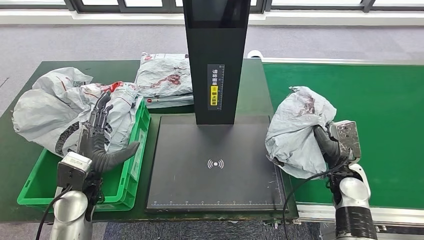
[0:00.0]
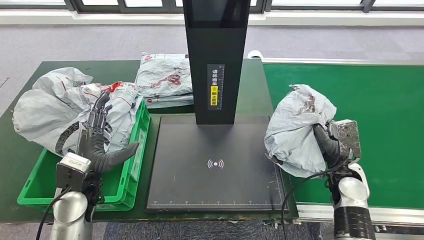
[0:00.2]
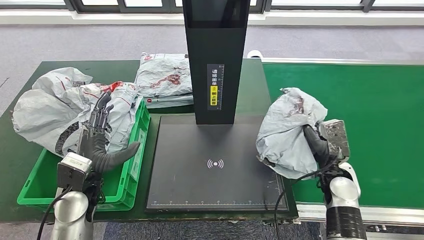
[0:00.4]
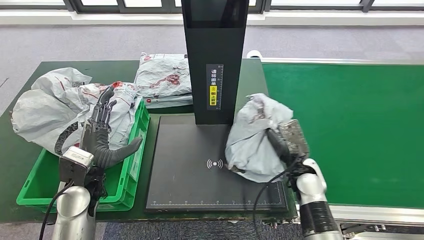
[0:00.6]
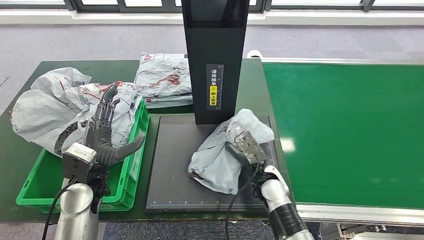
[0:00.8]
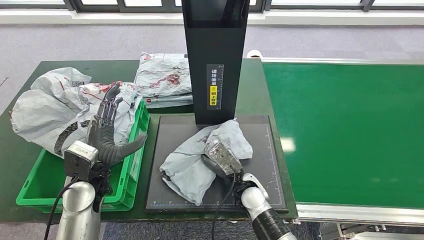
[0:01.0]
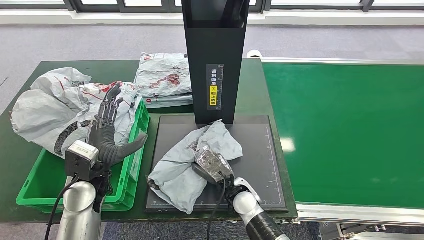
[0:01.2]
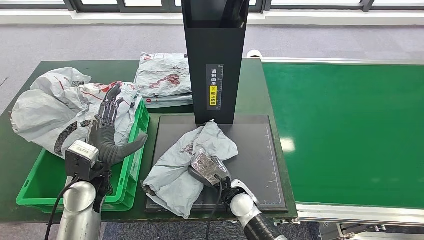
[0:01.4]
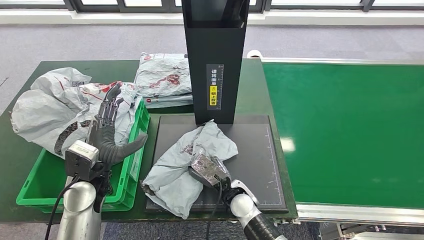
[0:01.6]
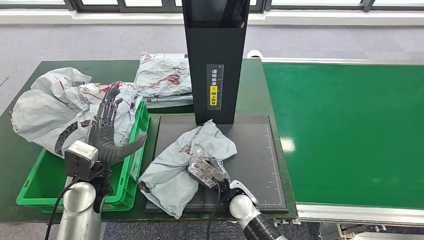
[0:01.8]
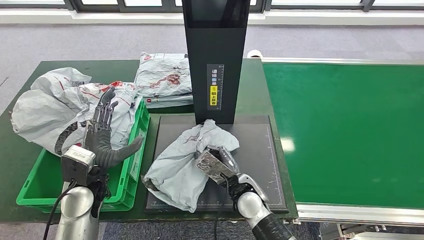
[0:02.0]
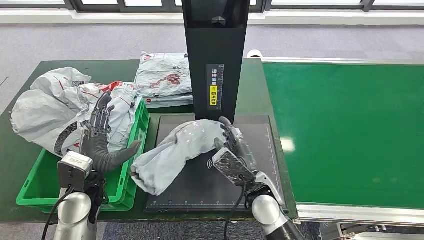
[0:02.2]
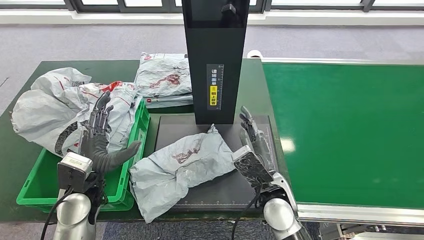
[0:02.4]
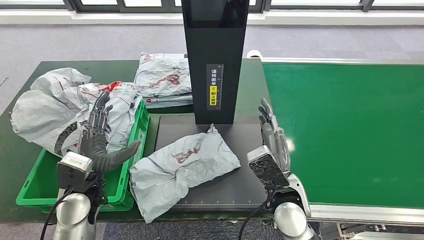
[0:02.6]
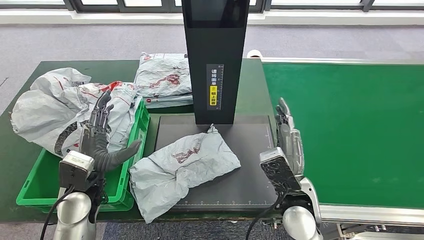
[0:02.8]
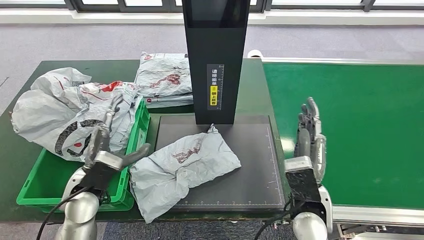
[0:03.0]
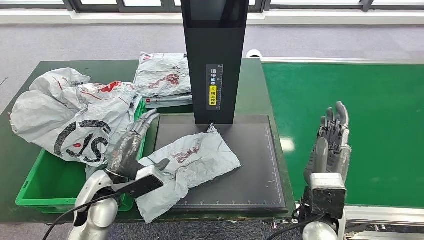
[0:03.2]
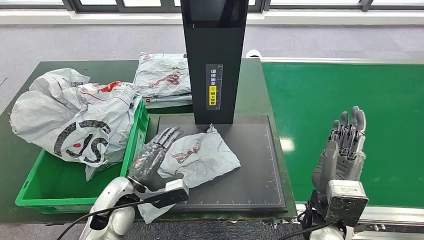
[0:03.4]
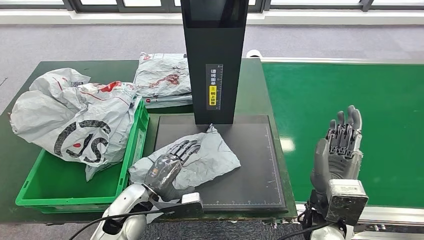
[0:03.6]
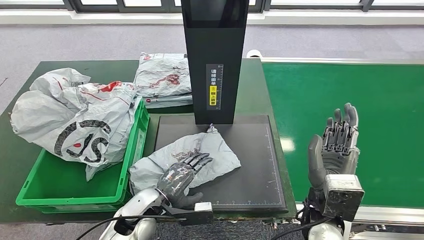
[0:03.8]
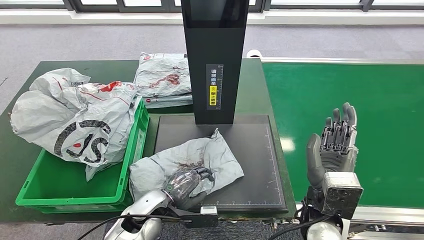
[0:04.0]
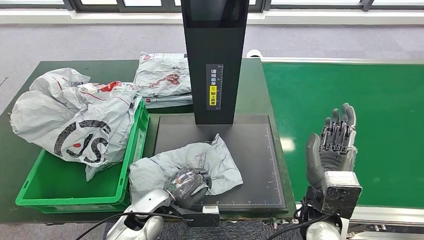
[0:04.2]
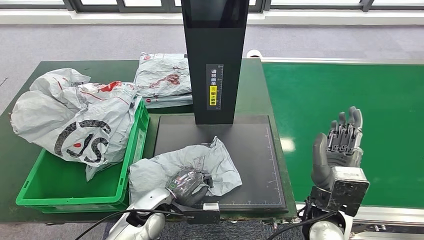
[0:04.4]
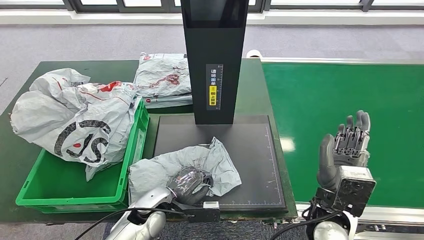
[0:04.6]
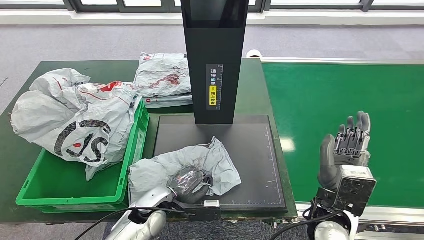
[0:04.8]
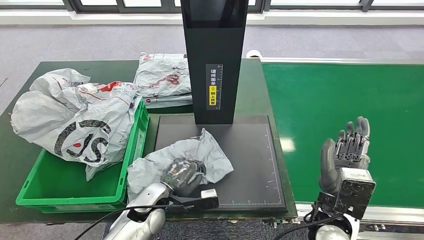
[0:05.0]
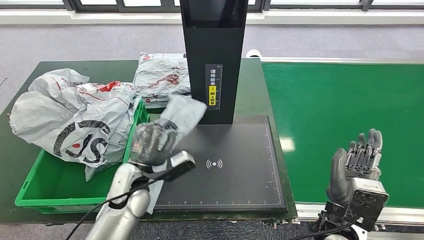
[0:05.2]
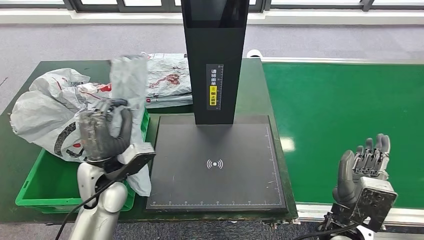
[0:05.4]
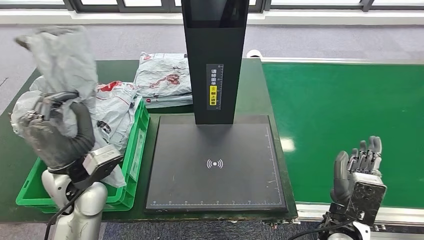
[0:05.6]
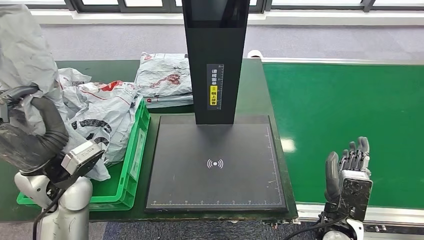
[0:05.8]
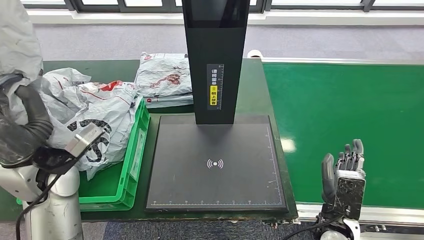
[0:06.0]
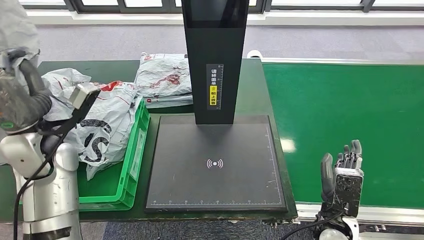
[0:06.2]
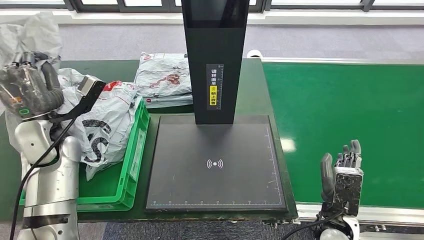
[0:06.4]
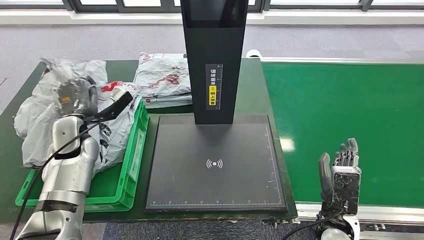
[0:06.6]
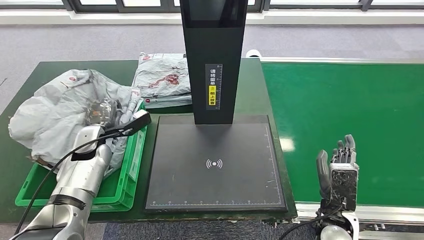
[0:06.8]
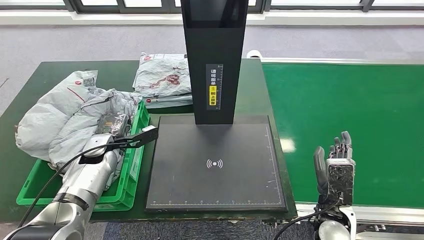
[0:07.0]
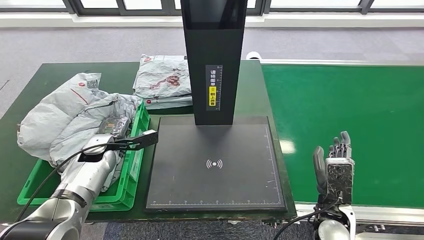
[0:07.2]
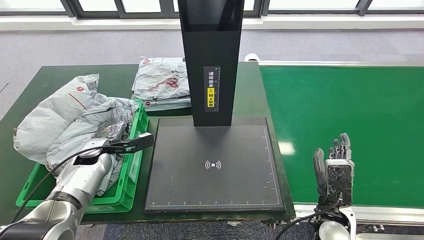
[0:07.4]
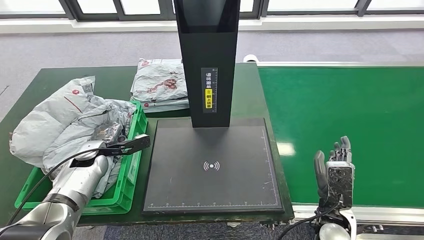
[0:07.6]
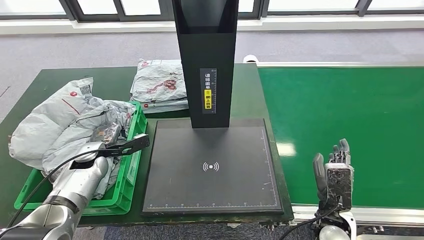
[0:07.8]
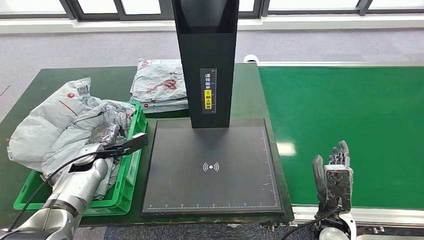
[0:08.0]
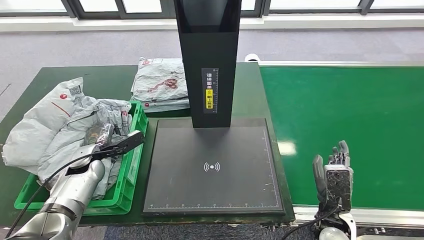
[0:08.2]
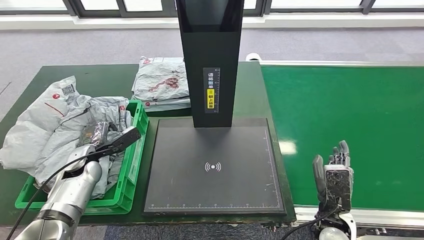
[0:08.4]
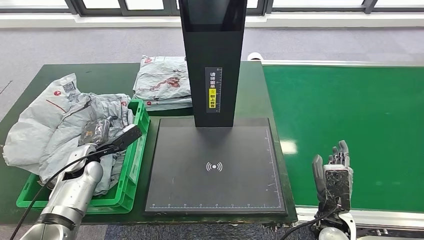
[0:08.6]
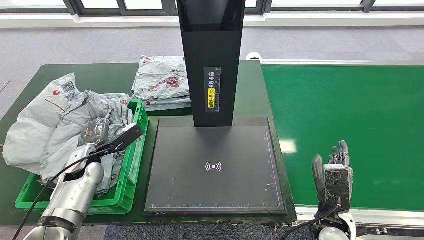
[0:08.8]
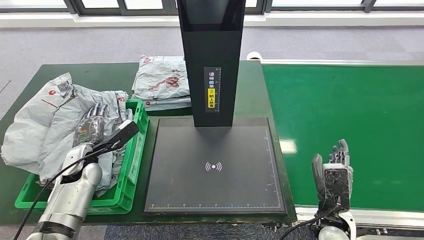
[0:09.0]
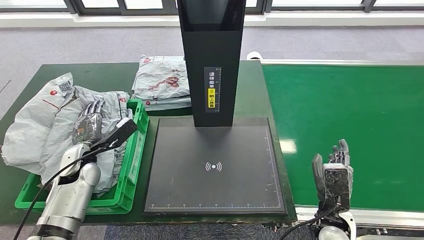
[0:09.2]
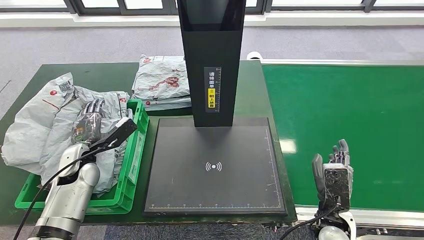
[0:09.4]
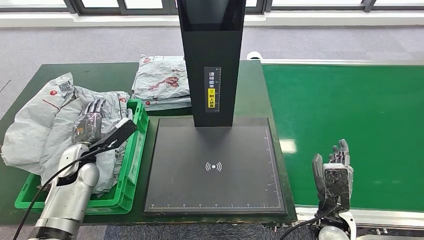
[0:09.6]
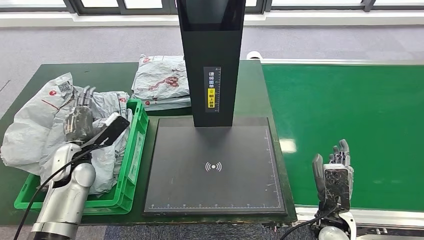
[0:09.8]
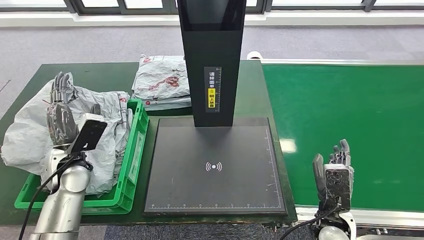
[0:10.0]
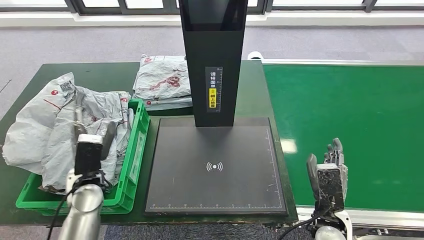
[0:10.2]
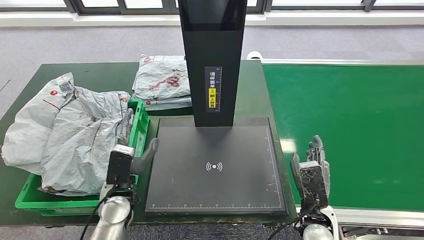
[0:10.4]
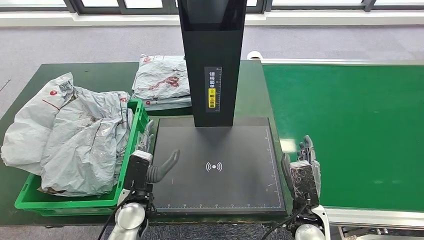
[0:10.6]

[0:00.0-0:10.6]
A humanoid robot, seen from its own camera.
Step, 0:00.2 to 0:03.0: Place the parcel onto the inbound machine.
Step, 0:03.2 to 0:06.4: Pick up the parcel from the inbound machine.
Step, 0:06.6 to 0:10.6: Place the parcel into the delivery box.
0:01.6 to 0:03.0: The right hand is displaced to the right and upward by about 15 cm.
0:09.0 to 0:10.6: The right hand shifts some 5 cm to the left. The left hand heads to the right and backward, covering roughly 20 cm.
